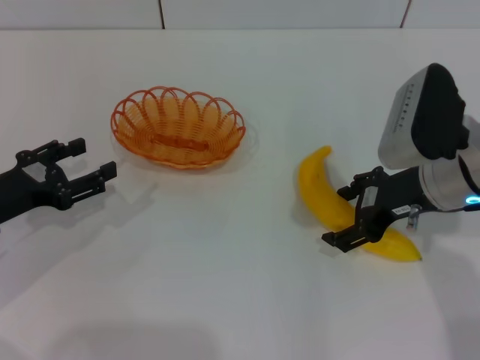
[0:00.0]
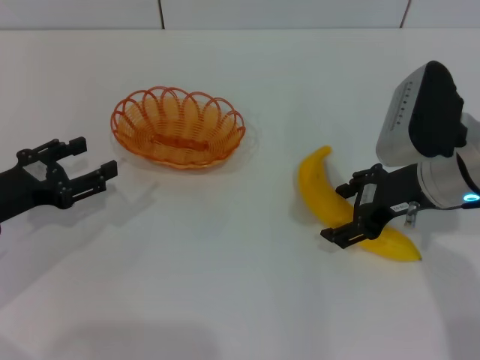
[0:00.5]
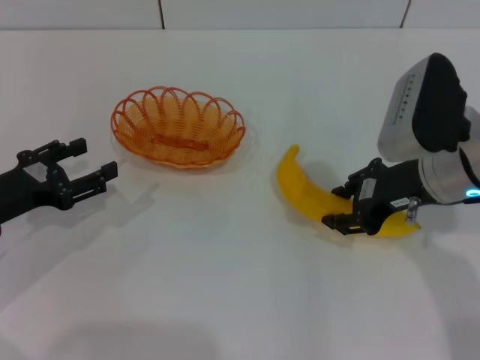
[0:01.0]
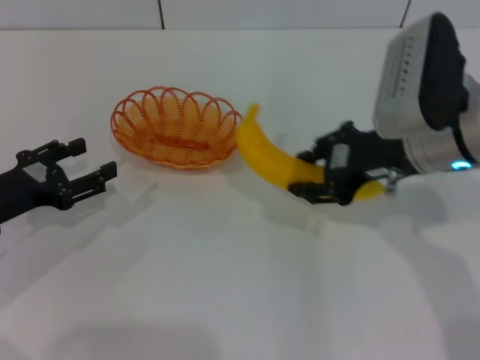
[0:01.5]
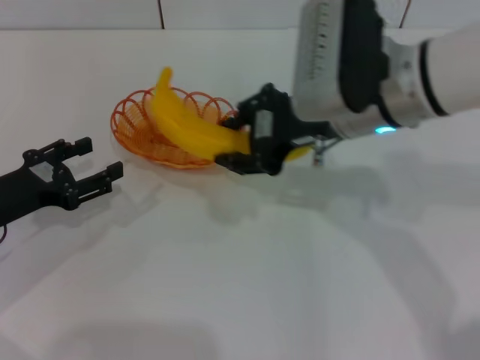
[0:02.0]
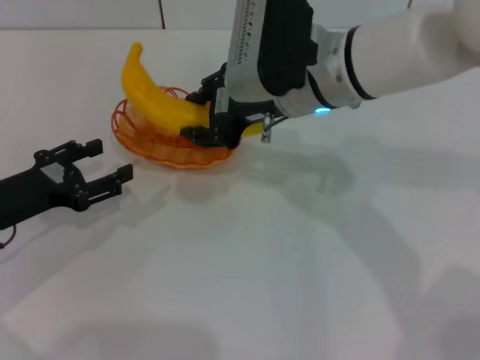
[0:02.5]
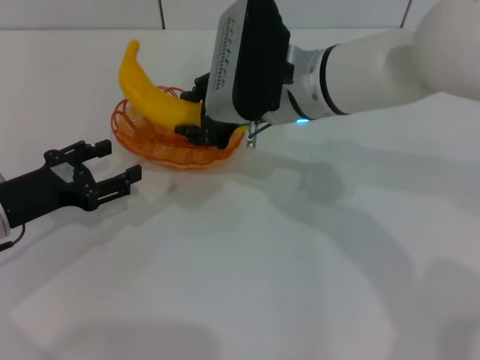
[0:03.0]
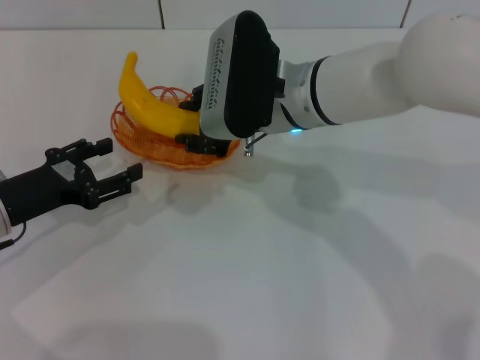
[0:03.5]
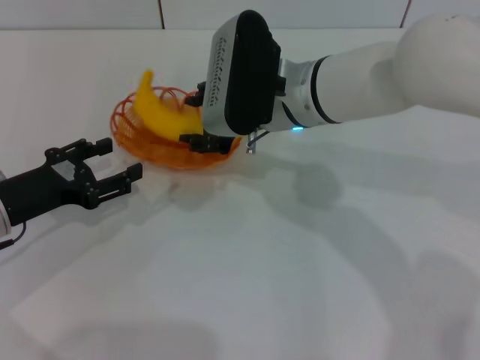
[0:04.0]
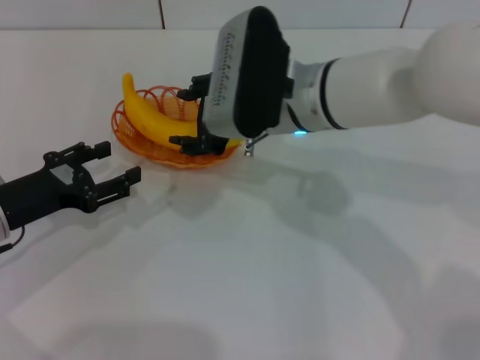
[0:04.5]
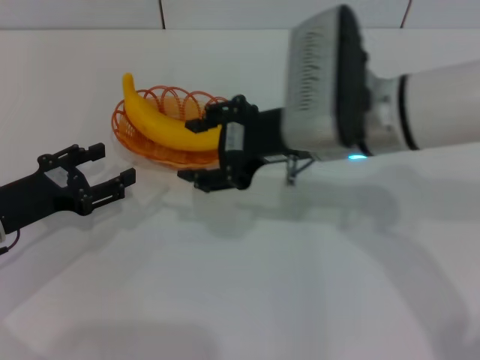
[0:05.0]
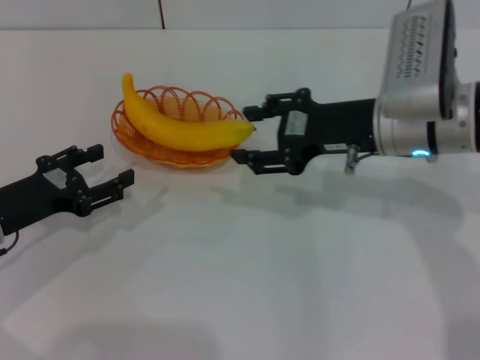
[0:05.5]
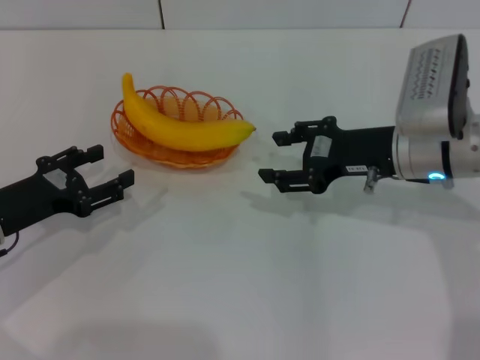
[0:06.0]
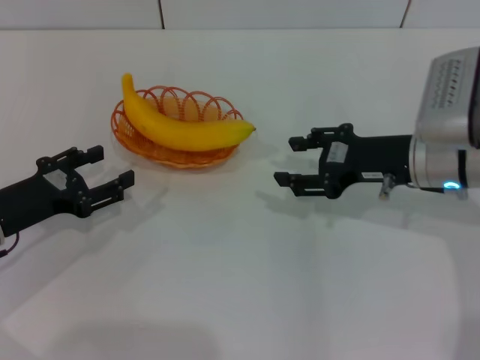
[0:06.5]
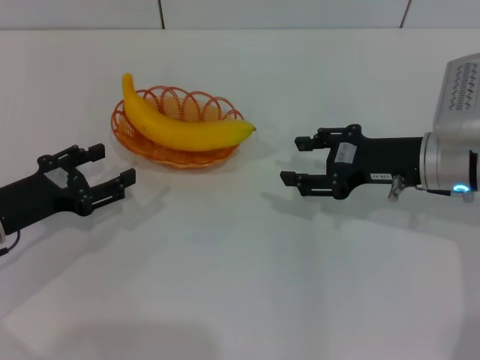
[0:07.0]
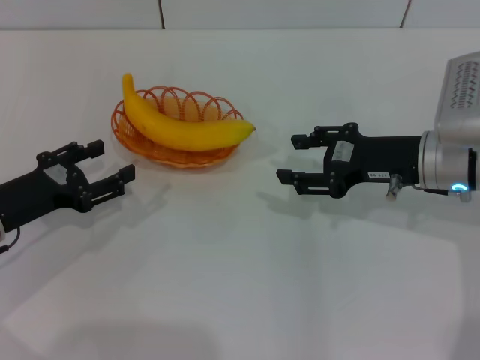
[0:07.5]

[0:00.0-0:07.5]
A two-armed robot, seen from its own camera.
Step, 0:02.0 to 0:04.0: Place the banana into the basket with the right gripper.
0:00.0 to 0:02.0: The right gripper goes approximately 10 cm to the left and upward, and closes.
0:02.0 to 0:04.0: The right gripper heads to the left and downward, covering approximately 10 cm.
0:04.0 to 0:05.5: The right gripper goes approximately 10 cm to the right.
0:05.5 to 0:07.5: The right gripper goes approximately 5 cm to the right.
